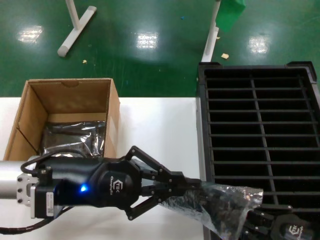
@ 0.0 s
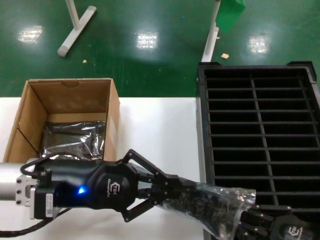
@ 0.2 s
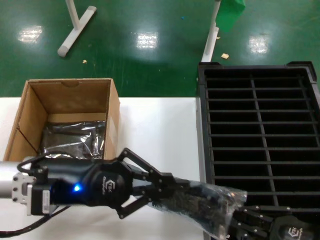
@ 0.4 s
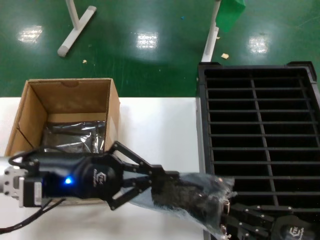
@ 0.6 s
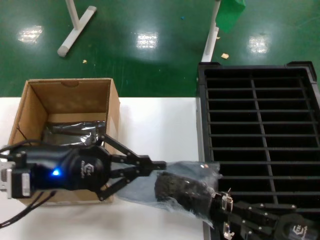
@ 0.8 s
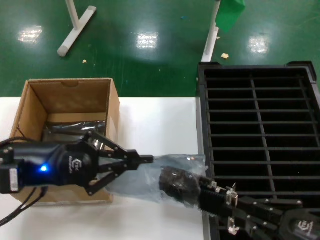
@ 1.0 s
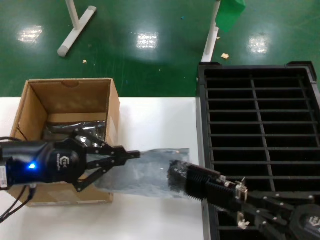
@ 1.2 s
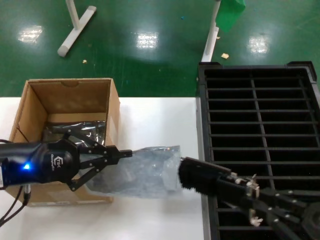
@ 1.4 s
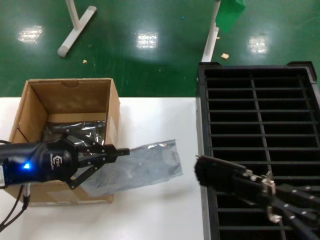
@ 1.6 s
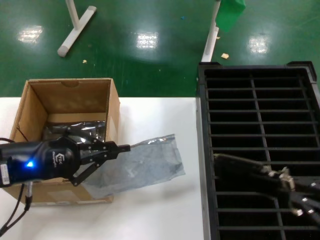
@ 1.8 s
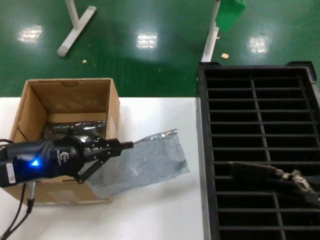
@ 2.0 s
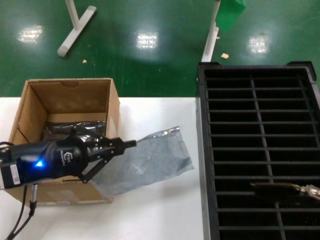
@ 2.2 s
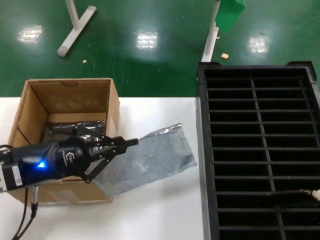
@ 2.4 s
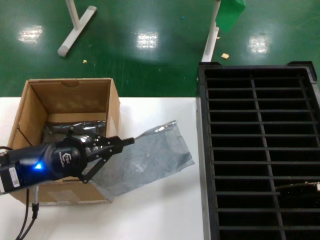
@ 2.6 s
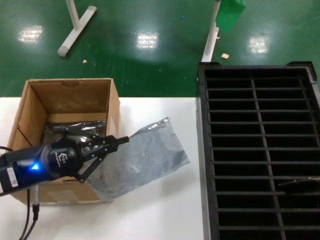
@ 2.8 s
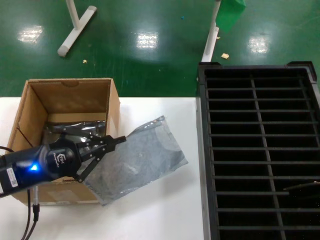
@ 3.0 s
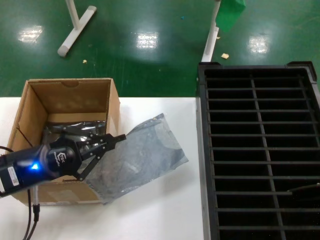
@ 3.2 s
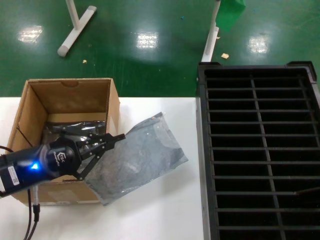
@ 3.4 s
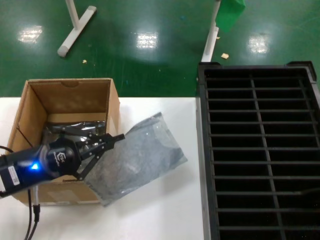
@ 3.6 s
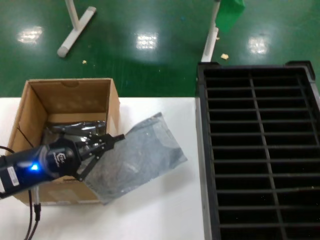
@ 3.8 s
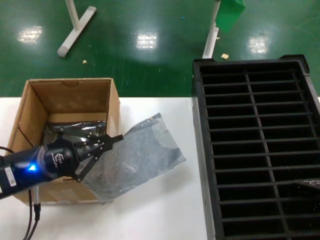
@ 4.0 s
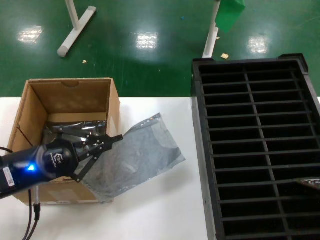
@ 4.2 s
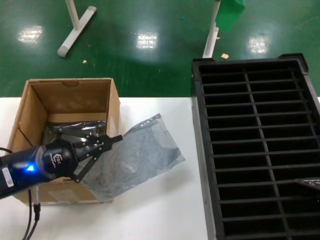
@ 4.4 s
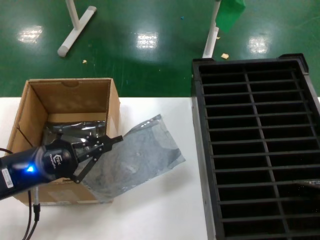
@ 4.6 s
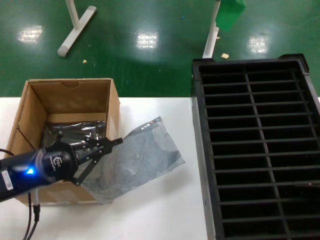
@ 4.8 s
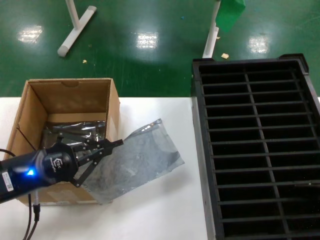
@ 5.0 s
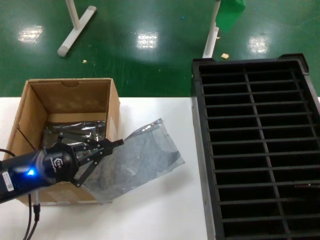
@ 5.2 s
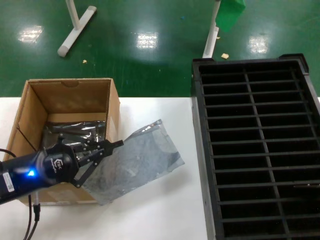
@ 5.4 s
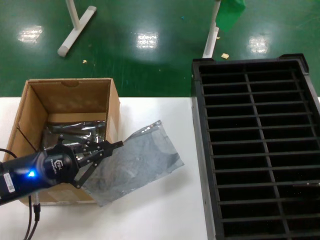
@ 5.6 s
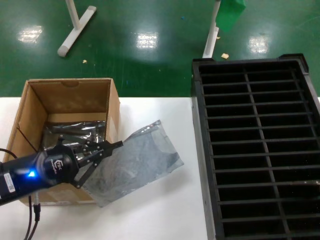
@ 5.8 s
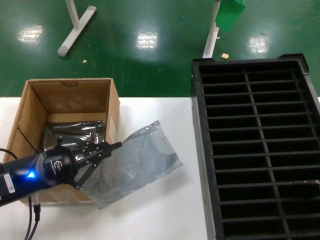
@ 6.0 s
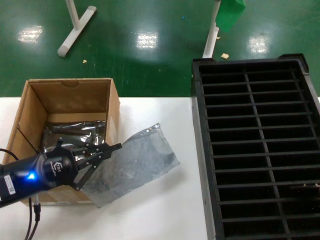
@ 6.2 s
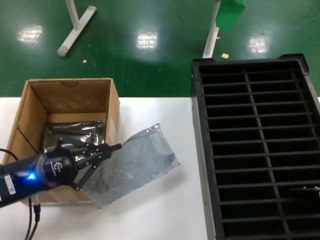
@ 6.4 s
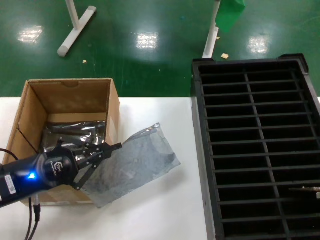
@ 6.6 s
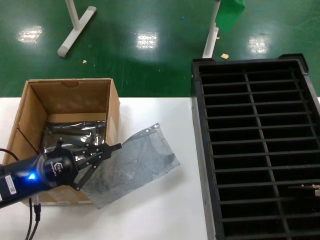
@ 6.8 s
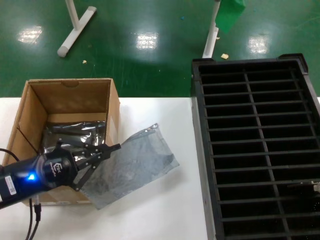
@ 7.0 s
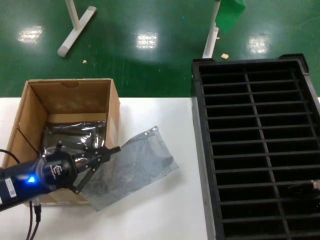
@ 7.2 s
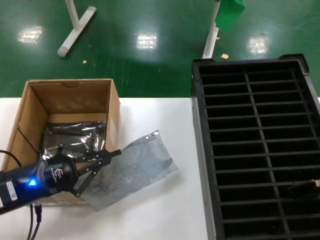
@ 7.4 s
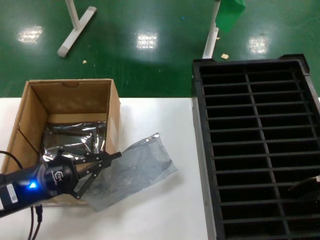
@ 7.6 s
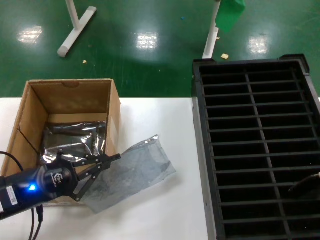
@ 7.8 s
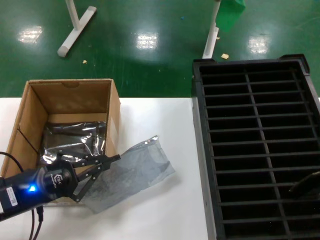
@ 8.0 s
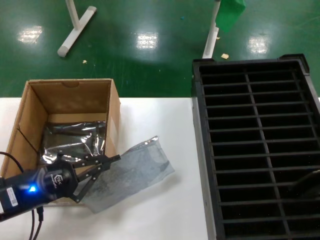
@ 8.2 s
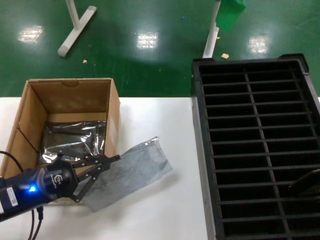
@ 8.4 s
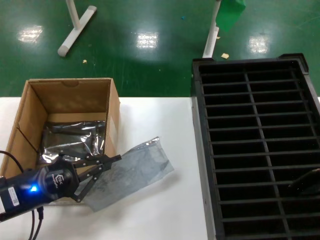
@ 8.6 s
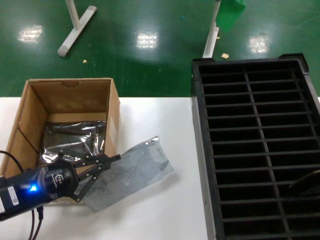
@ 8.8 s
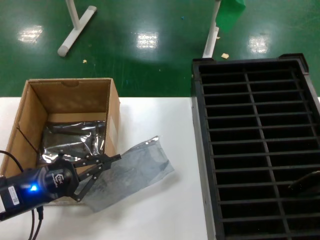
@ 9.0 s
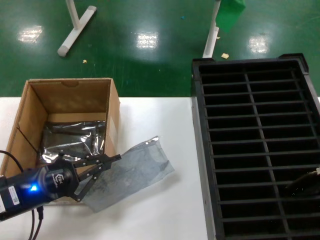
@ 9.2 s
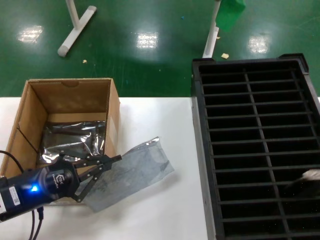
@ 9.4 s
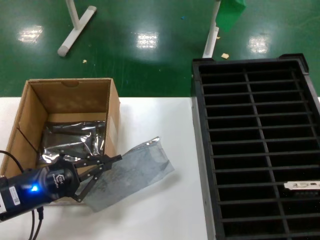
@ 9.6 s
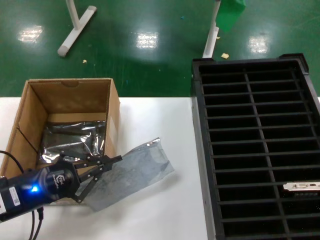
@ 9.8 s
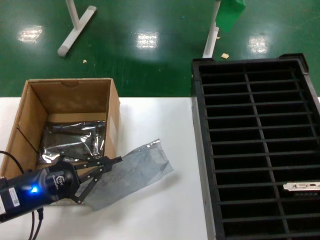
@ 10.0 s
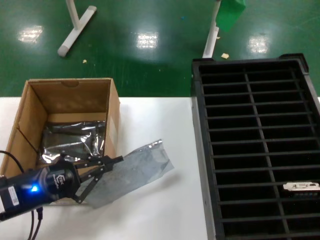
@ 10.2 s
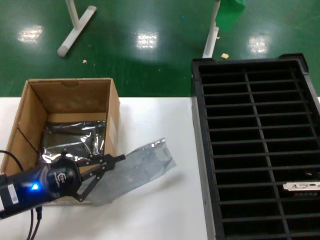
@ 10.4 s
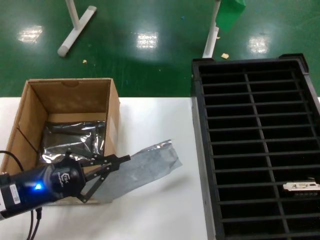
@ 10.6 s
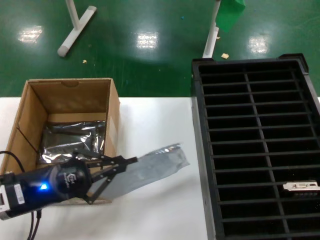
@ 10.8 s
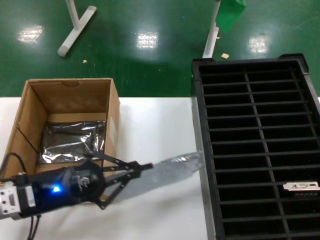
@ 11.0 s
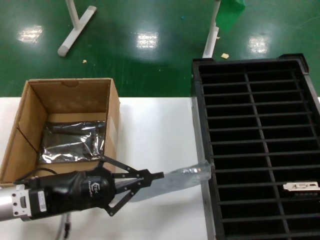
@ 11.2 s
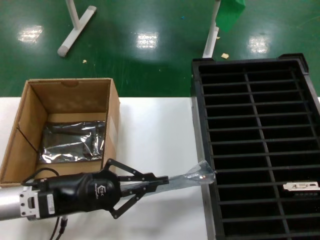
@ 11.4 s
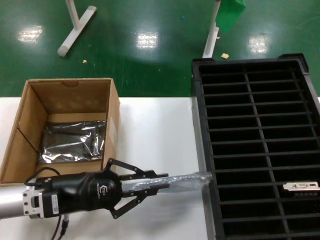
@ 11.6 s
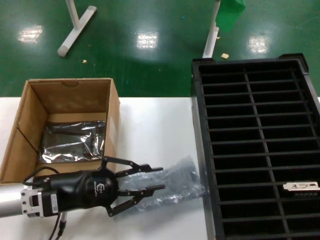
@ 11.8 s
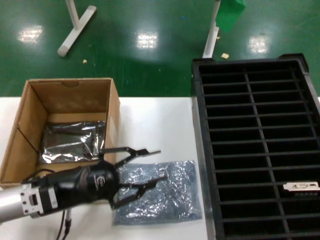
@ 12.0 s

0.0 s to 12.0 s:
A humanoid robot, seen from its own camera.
Task of the whole recording: take out graphics card from box remove packaging put into black container.
Step, 1.6 to 10.0 s: Place the hard disk in the hard disk enclosure.
Step, 10.2 to 11.8 s: Place the down the bag.
0.0 to 1.6 s: The left hand travels to the left by roughly 10 cm. Meanwhile the right hand goes about 10 cm upward.
1.6 to 3.0 s: The right hand travels upward by some 15 cm, while the left hand moves downward, approximately 5 cm.
3.0 to 6.0 s: The hands stay close to where they were, moving slightly.
6.0 to 7.6 s: The hands stay close to where they were, moving slightly.
7.6 to 9.0 s: The hands stay close to where they were, moving slightly.
9.0 to 10.4 s: The right hand moves downward, about 5 cm.
10.4 to 12.0 s: The left hand heads to the right, covering roughly 5 cm.

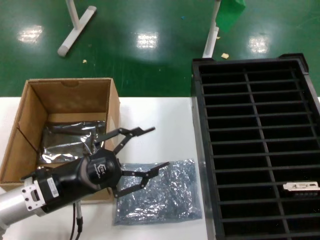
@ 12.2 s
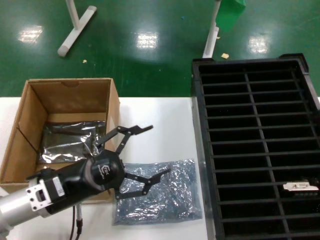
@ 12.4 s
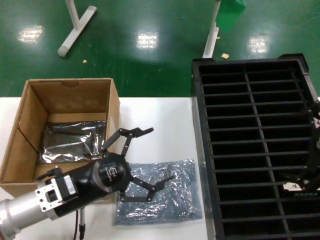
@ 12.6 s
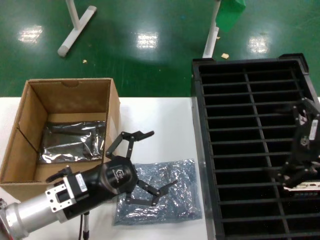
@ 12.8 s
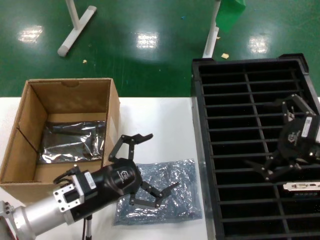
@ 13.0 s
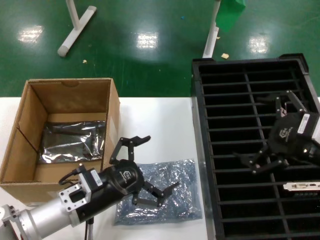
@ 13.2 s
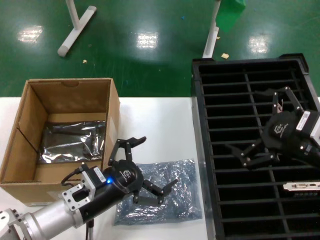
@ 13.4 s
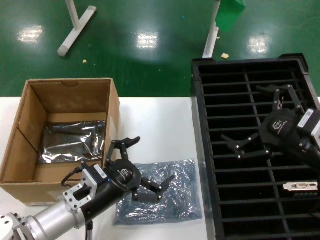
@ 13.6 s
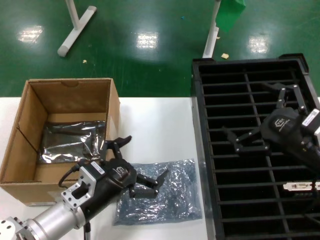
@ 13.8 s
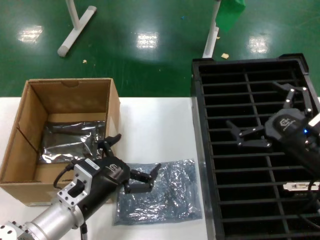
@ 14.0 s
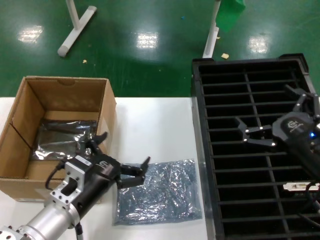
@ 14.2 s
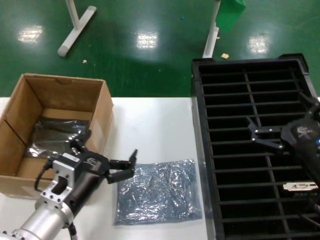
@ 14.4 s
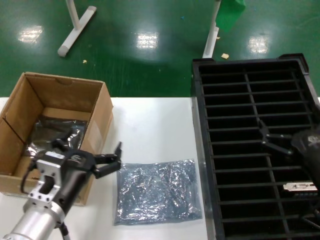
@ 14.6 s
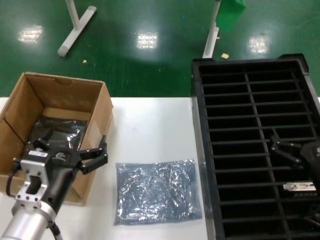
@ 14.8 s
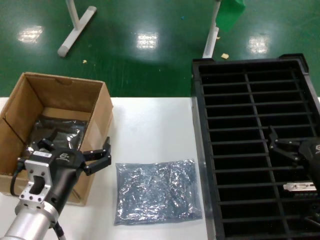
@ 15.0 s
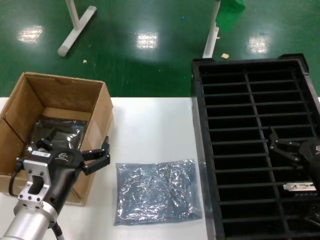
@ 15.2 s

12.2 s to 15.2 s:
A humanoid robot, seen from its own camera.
Task of the whole recording: take out graphics card from box remove packaging put into black container.
12.2 to 13.8 s: The right hand heads downward, covering roughly 10 cm. The left hand moves to the right, roughly 10 cm.
13.8 to 15.2 s: The right hand travels downward by roughly 10 cm, while the left hand moves roughly 5 cm.
